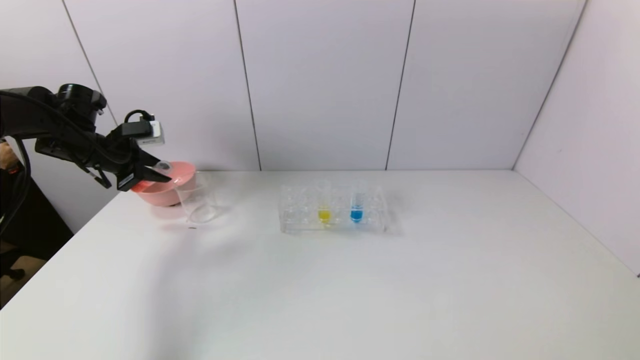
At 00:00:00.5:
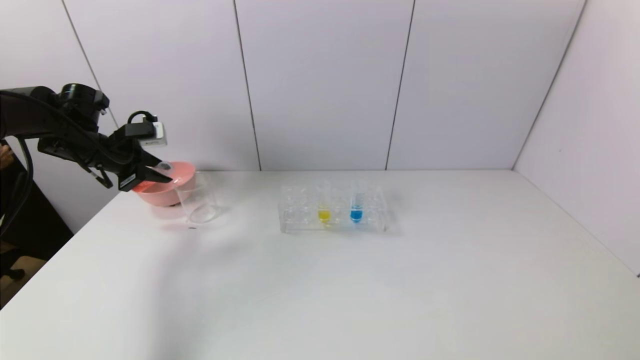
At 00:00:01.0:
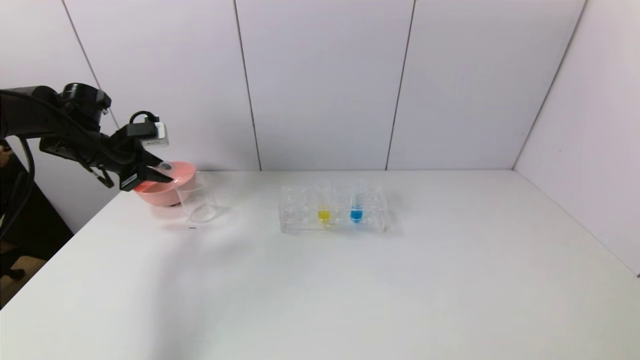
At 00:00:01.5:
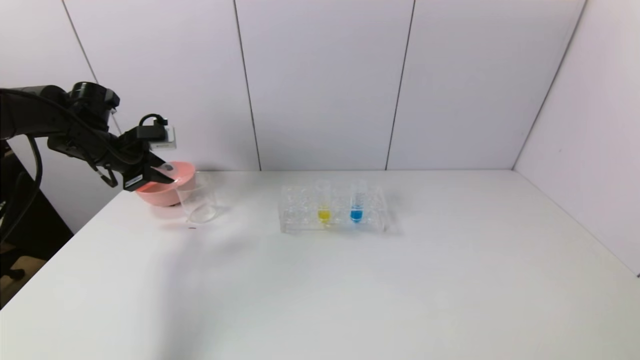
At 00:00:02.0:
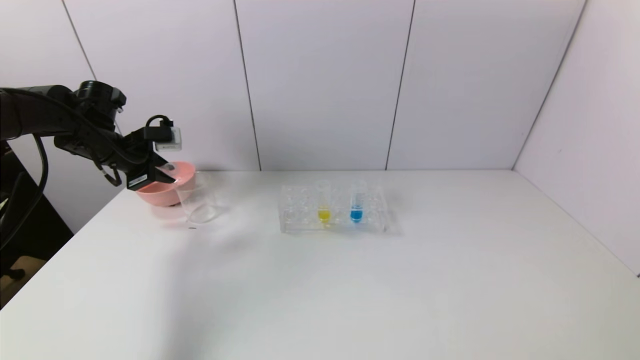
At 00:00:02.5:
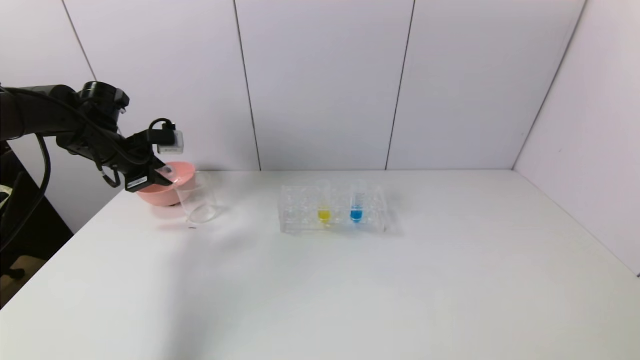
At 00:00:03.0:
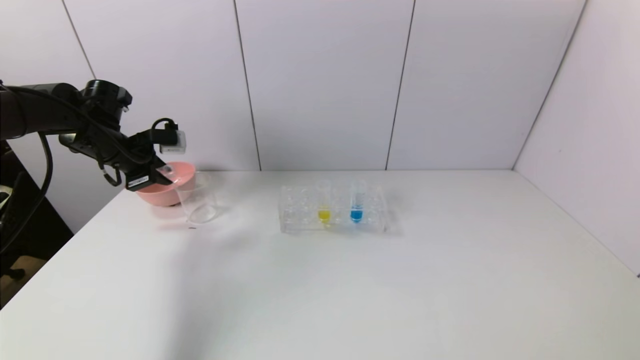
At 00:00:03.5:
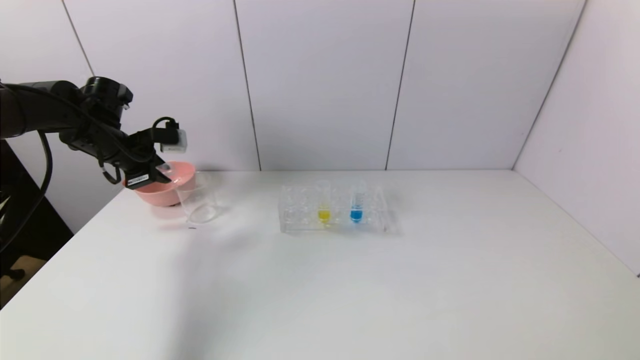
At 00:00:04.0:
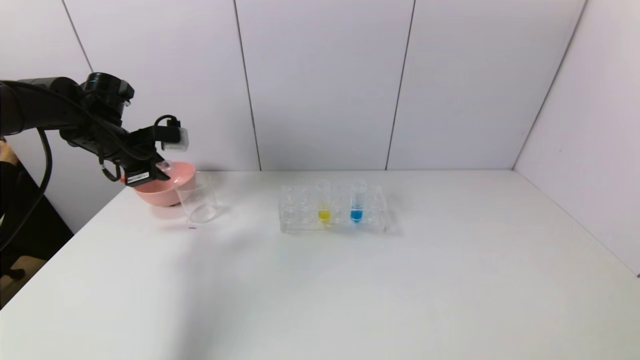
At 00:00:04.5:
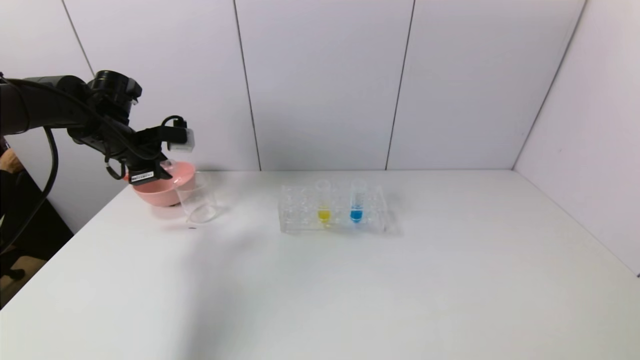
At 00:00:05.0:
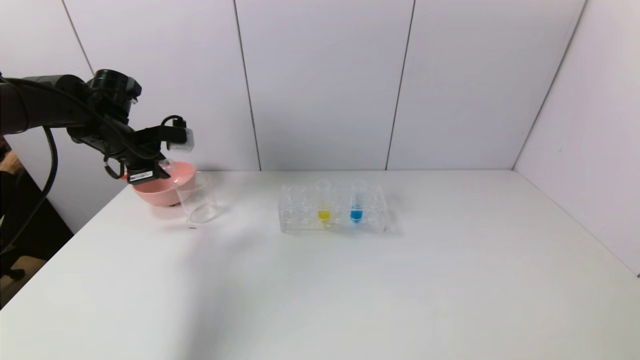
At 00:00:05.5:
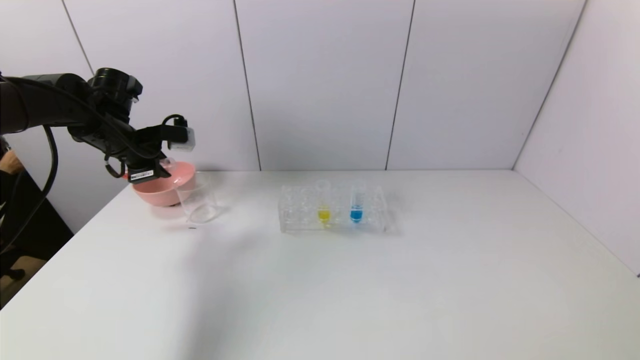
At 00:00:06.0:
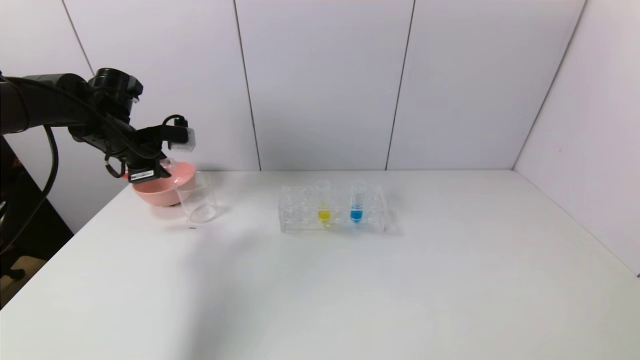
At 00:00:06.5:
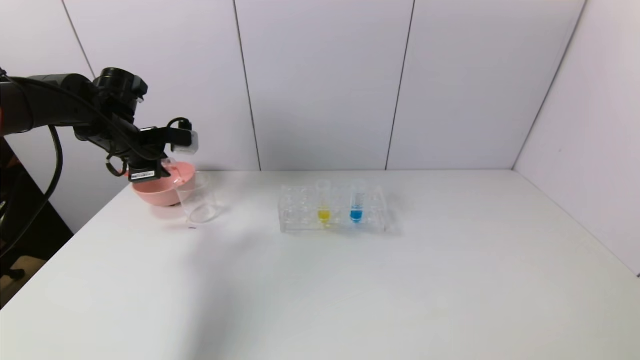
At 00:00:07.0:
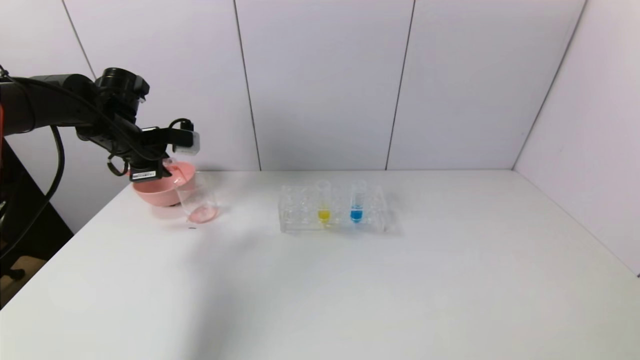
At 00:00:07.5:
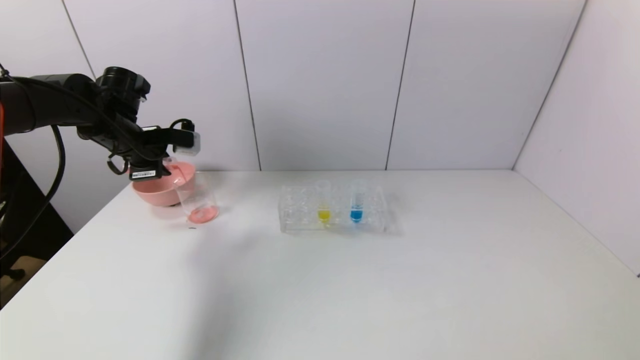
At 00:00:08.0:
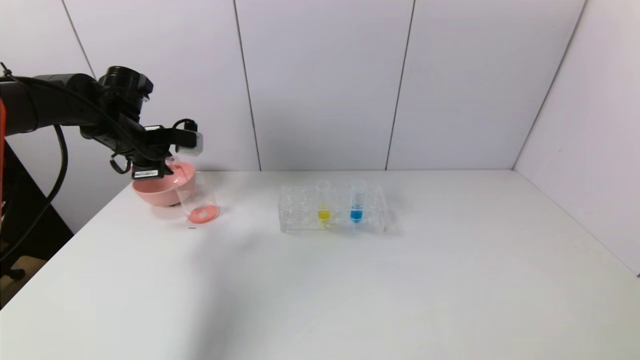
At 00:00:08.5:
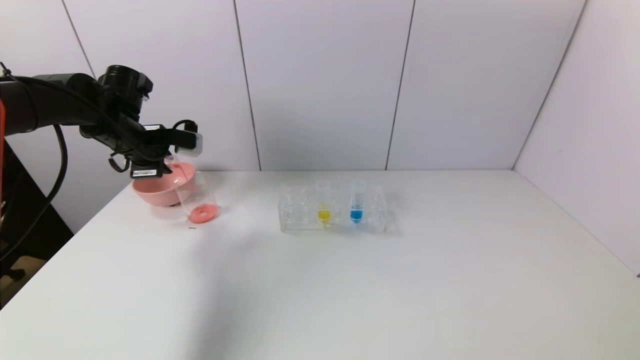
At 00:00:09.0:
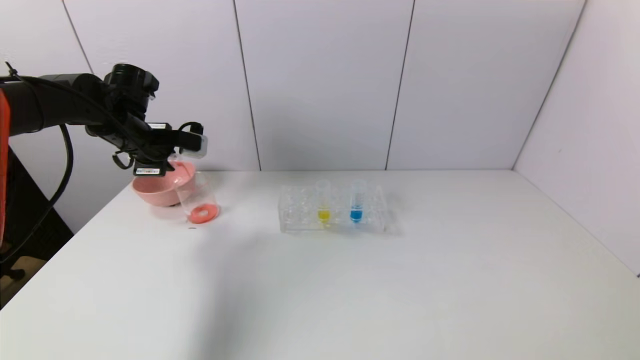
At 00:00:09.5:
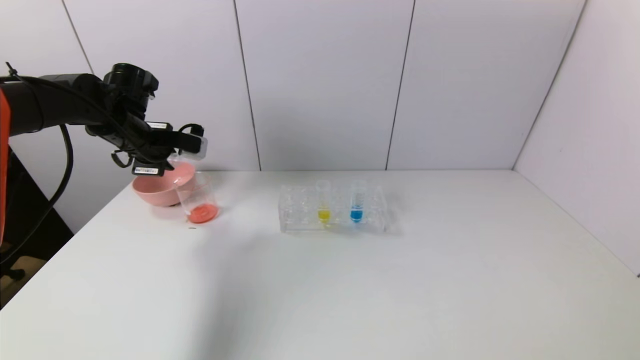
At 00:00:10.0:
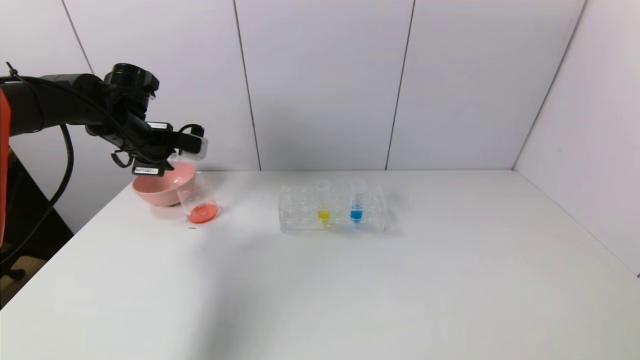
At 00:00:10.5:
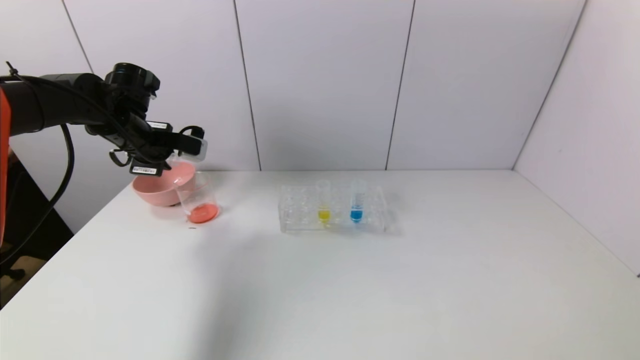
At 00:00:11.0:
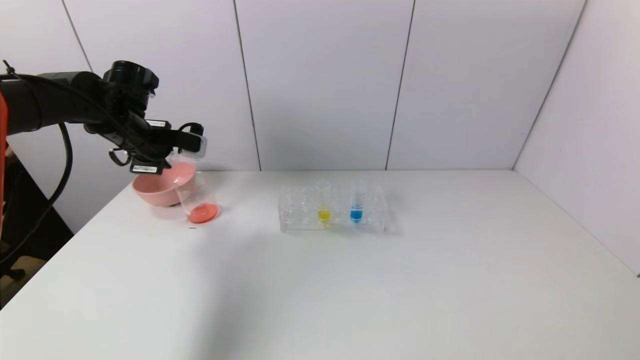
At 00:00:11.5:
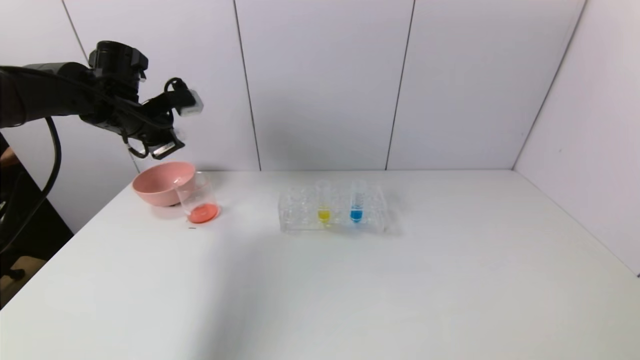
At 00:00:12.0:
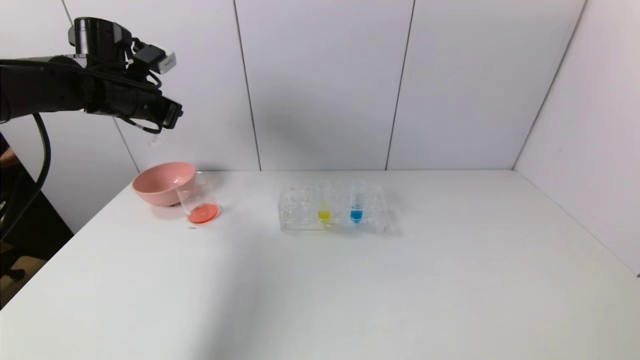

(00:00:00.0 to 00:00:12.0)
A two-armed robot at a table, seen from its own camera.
Task of the whole recording: pick up the test tube with red pigment and the test tube with blue pigment by grippers and pour them into the container.
Step, 00:00:00.0 - 00:00:11.0: Pour the red reagent into the graduated cylinder with the left gripper.
00:00:00.0 - 00:00:04.0: There are only small adjustments of the grippers.
00:00:04.0 - 00:00:08.0: The grippers make only small movements.
00:00:08.0 - 00:00:10.0: The grippers make only small movements.
00:00:10.0 - 00:00:12.0: The left gripper is displaced upward by roughly 5 cm.

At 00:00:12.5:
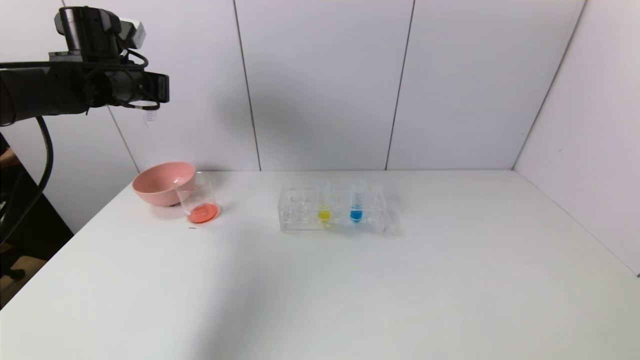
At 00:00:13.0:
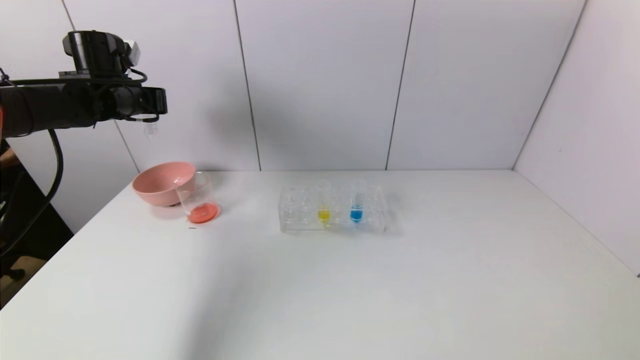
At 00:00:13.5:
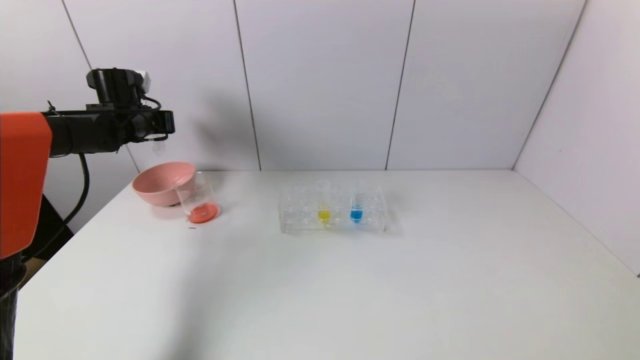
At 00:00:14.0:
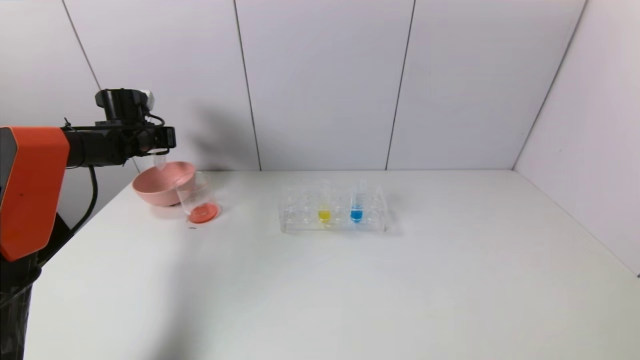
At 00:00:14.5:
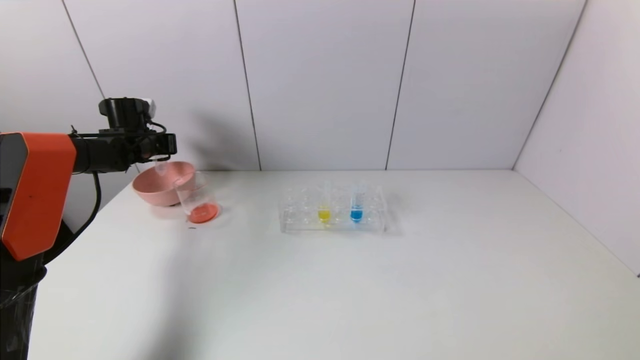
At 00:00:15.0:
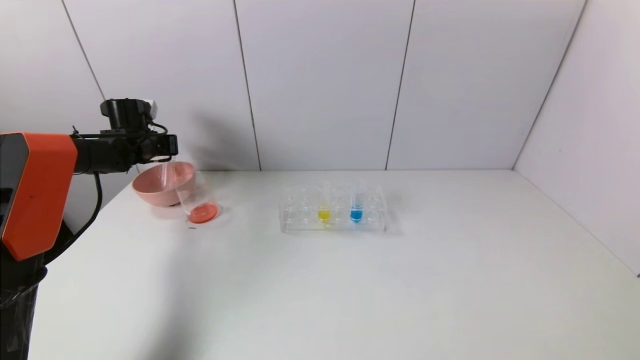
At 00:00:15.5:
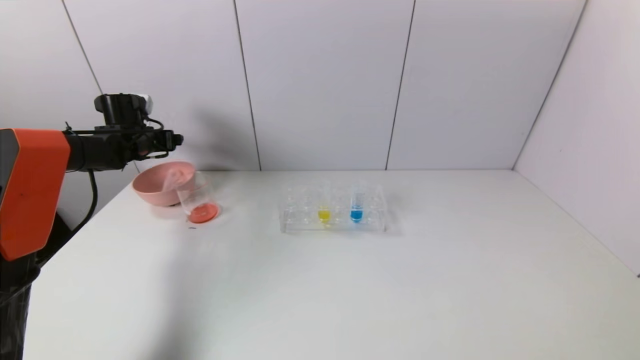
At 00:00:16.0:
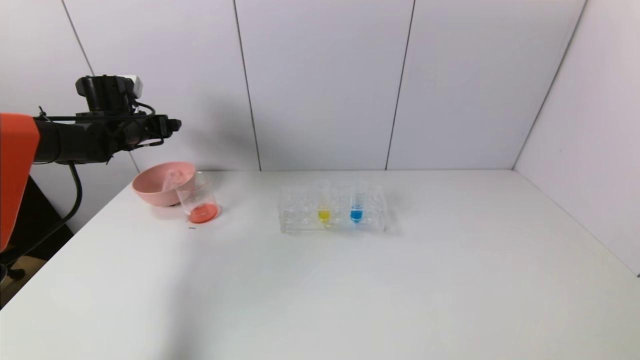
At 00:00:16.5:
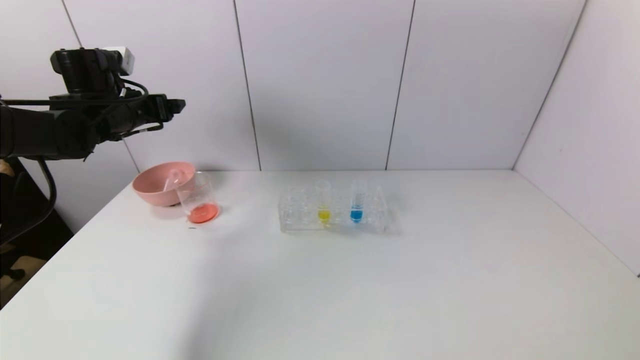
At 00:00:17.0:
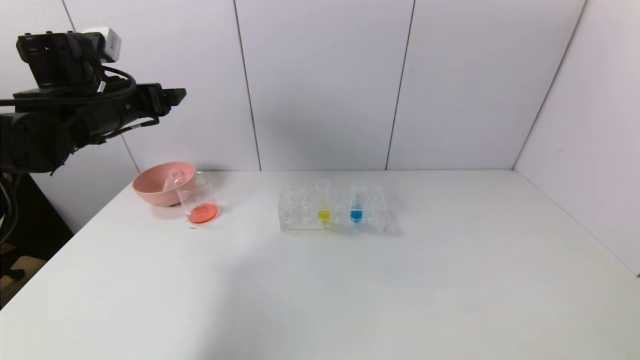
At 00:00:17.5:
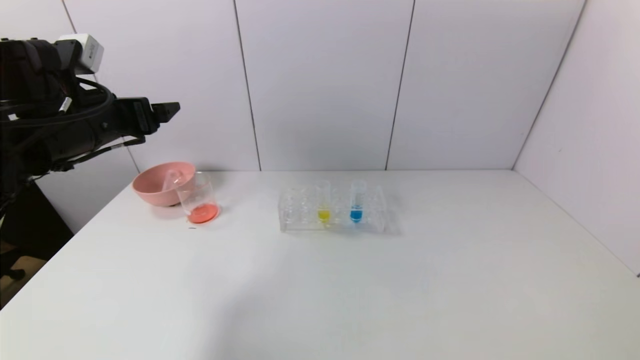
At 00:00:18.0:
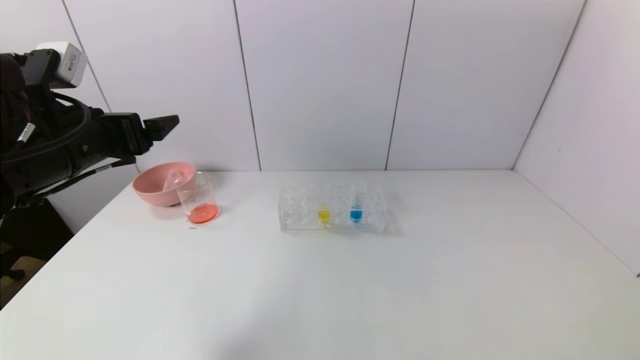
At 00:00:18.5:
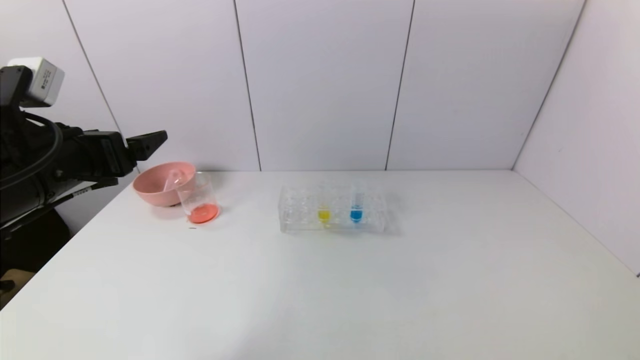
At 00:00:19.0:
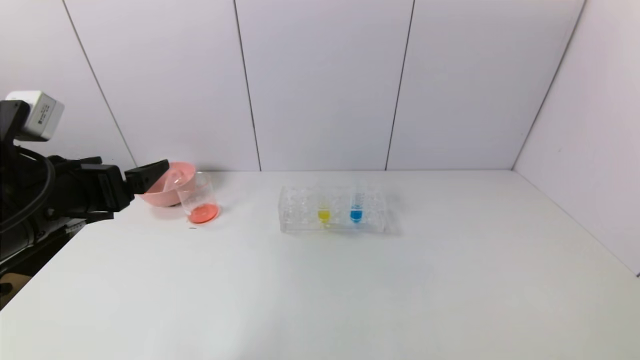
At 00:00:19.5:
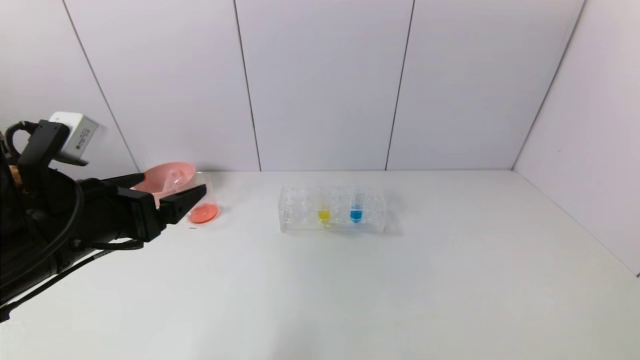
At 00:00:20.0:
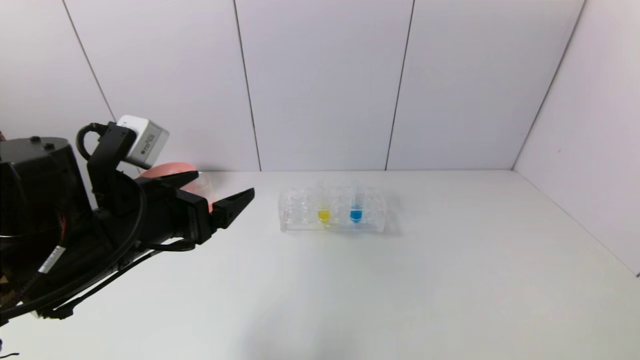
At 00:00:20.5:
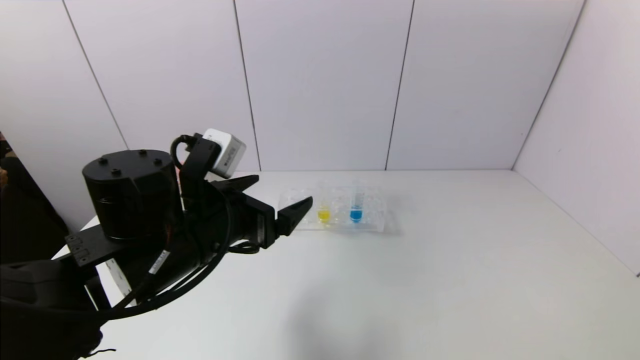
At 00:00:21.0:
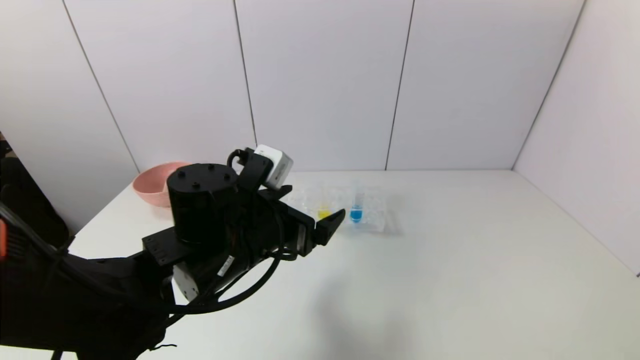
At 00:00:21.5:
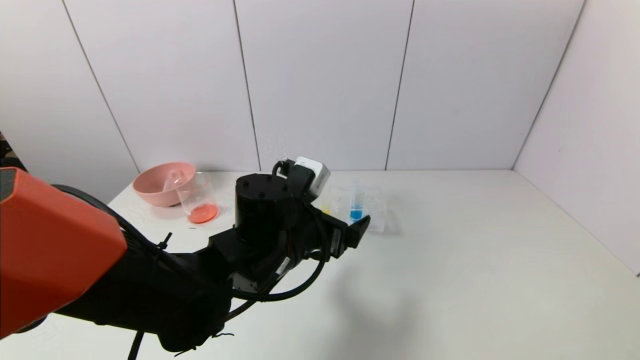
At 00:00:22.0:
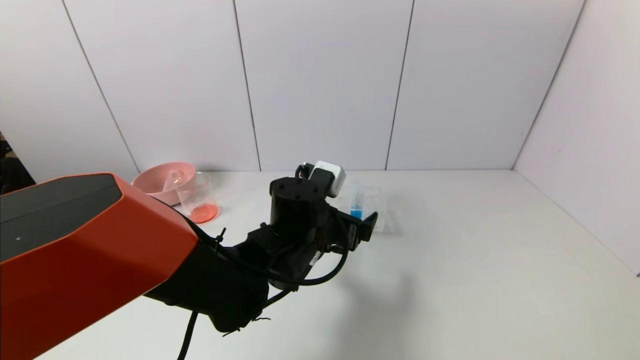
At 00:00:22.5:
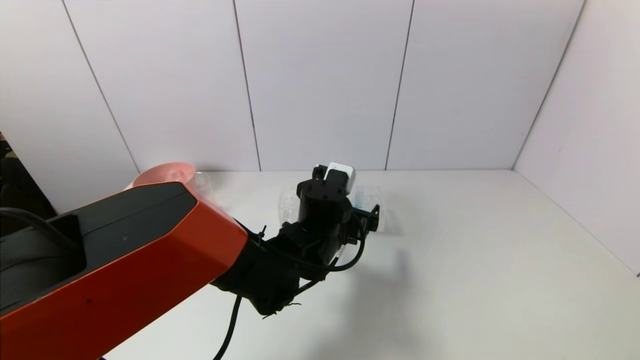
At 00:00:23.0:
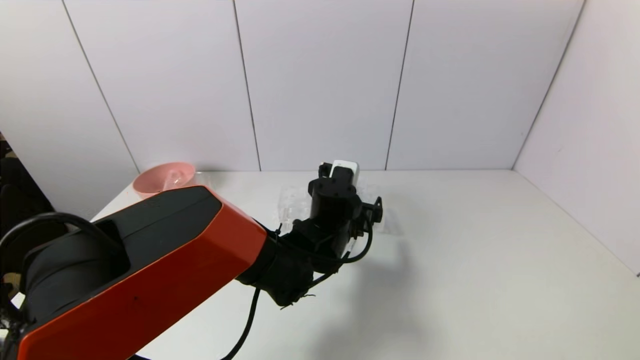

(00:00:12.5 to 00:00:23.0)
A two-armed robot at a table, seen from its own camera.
Task of the whole recording: pick up the test tube with red pigment and the test tube with blue pigment by grippers and pour them into the container.
Step, 00:00:12.5 - 00:00:16.0: Place the test tube into the bowl with the left gripper.
00:00:12.5 - 00:00:14.5: The left gripper is displaced downward, forward and to the left by about 15 cm.
00:00:14.5 - 00:00:16.5: The left gripper goes some 15 cm backward, upward and to the right, and opens its fingers.
00:00:16.5 - 00:00:19.0: The left gripper heads backward, covering roughly 20 cm.
00:00:19.0 - 00:00:21.0: The left gripper travels to the right by about 20 cm.
00:00:21.0 - 00:00:23.0: The left gripper shifts roughly 15 cm to the right, forward and downward.
